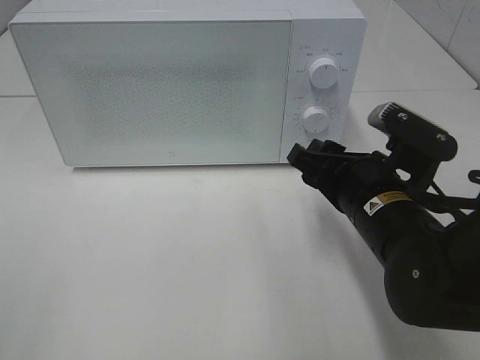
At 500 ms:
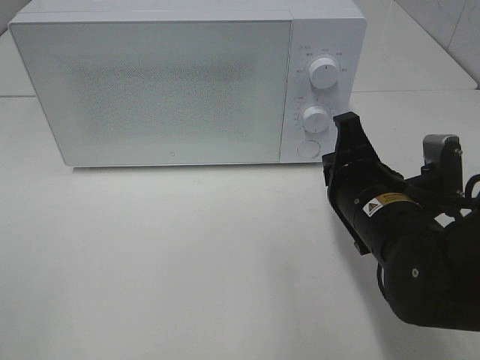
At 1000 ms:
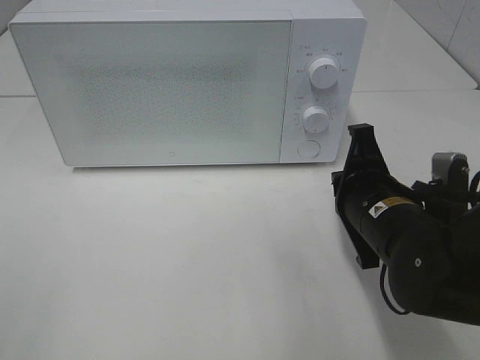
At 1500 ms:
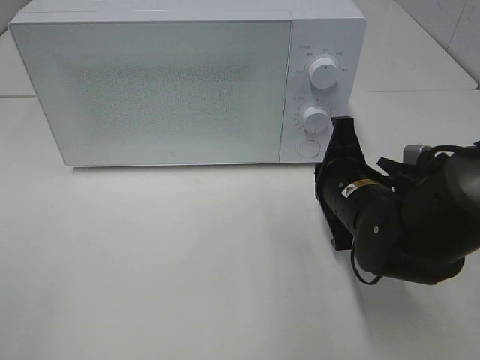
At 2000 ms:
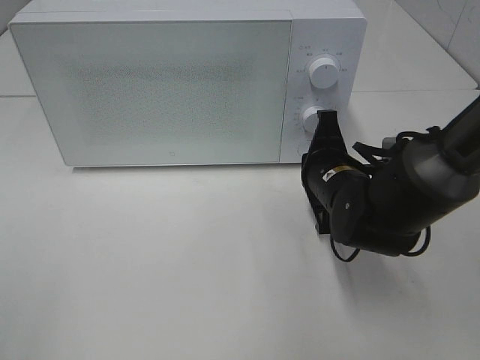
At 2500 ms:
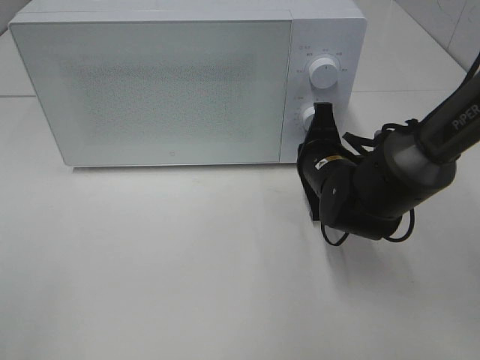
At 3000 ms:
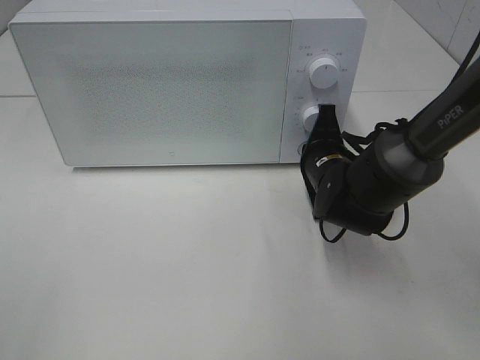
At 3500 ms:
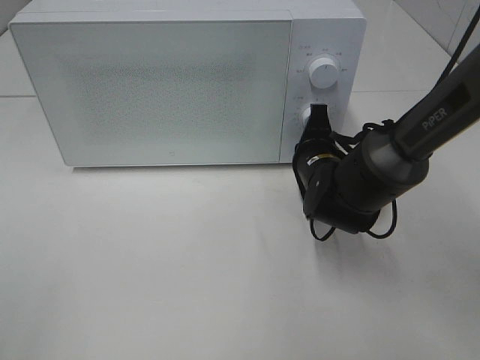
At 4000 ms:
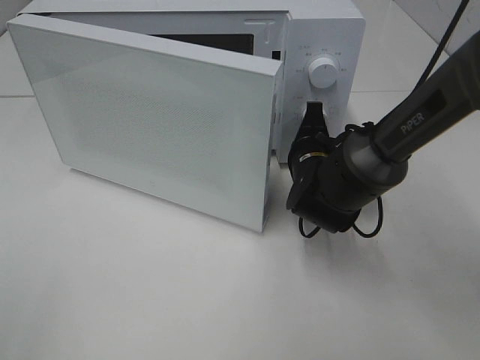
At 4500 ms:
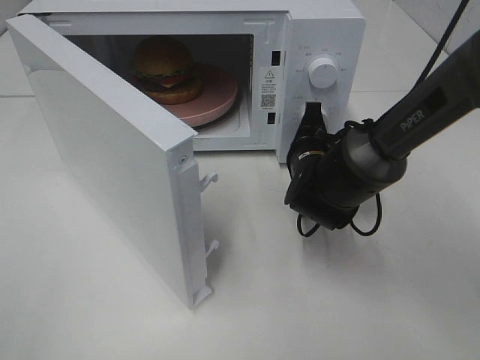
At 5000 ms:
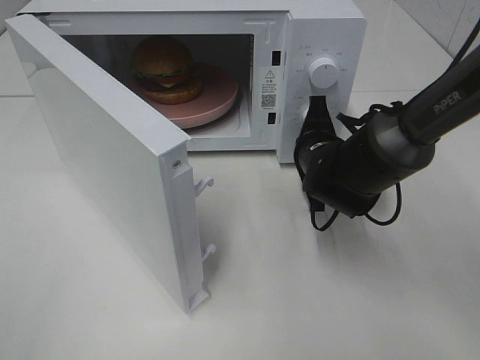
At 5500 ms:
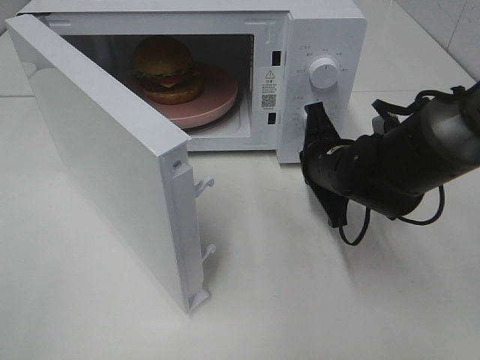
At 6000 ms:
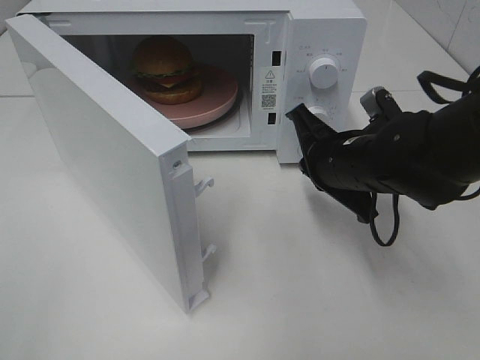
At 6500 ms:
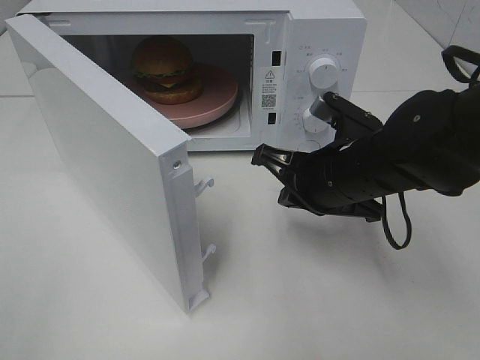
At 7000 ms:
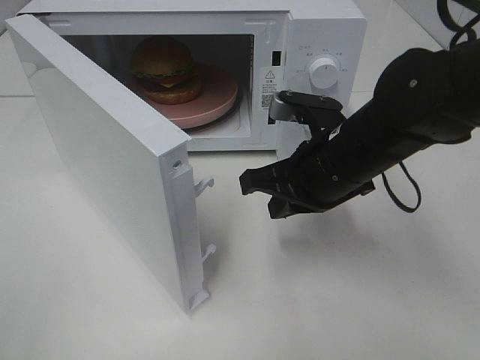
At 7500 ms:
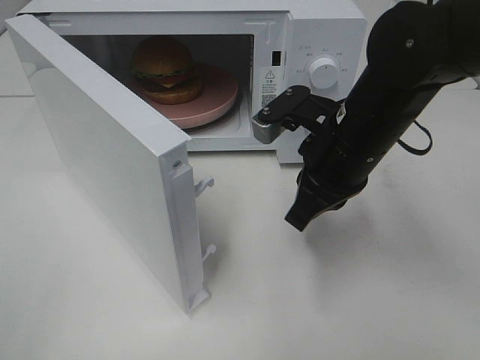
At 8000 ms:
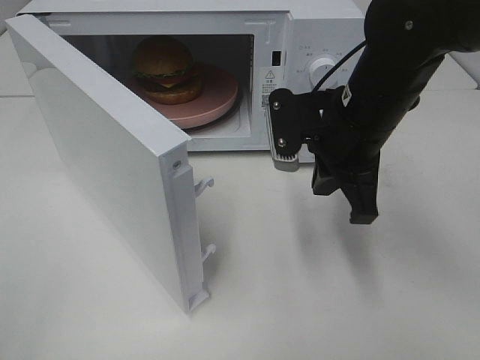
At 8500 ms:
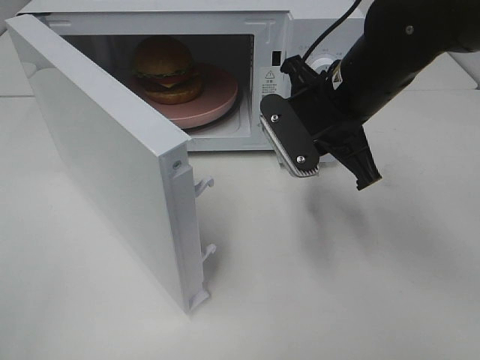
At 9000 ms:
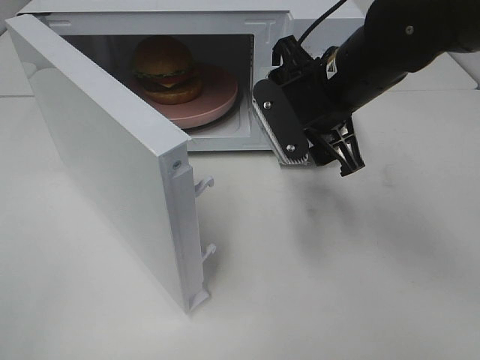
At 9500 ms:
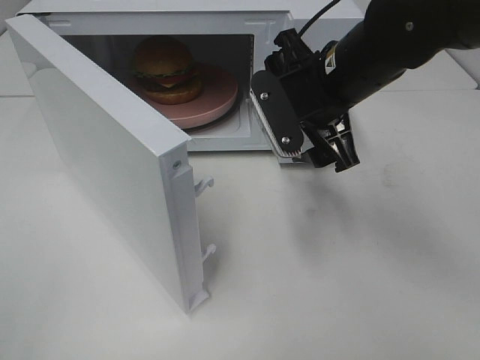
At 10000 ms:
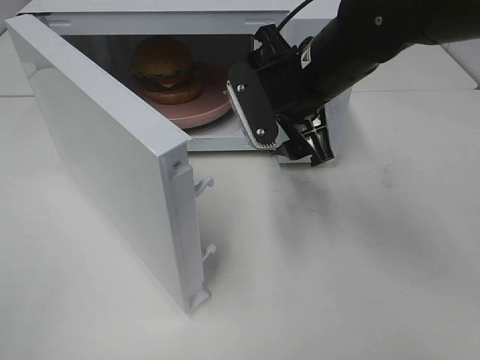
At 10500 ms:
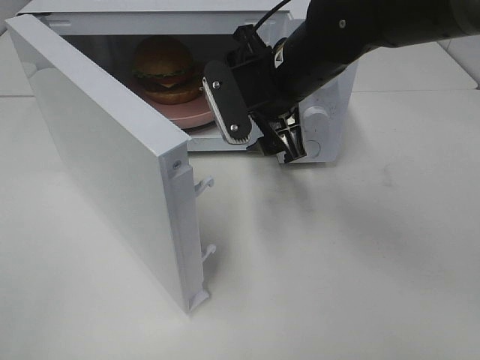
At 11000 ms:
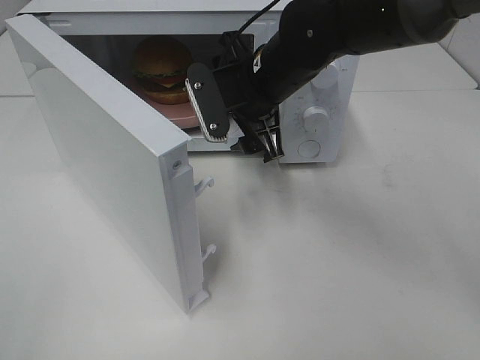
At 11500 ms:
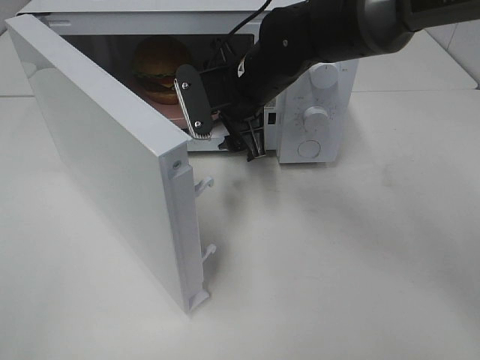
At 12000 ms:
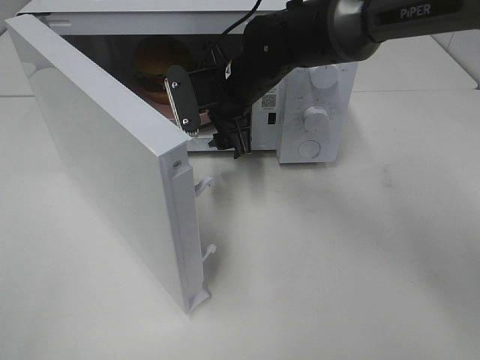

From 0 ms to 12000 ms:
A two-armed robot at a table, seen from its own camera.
Task of the whole recording: Heat the burger.
Step, from 0 ms to 5000 ms: Right hand: press the switch.
From 0 ms to 2000 ms: The right gripper travels forward by roughly 10 cm, and closes its fingers.
From 2000 ms to 4000 ms: The right gripper shifts roughly 5 cm forward.
From 4000 ms to 6000 ms: The right gripper is displaced backward and upward by some 10 cm.
From 6000 ms to 8000 ms: The right gripper moves upward, some 5 cm.
From 8000 ms to 10000 ms: The right gripper shifts by some 5 cm, and opens its fingers.
From 10000 ms to 12000 ms: The right gripper goes about 10 cm forward, to the left and downward.

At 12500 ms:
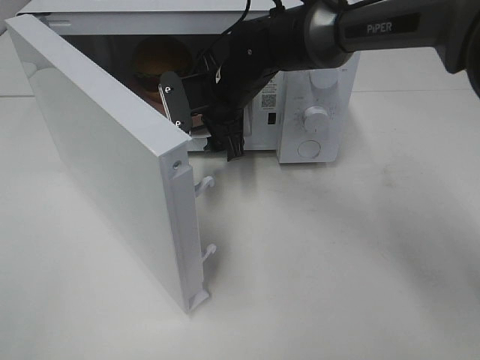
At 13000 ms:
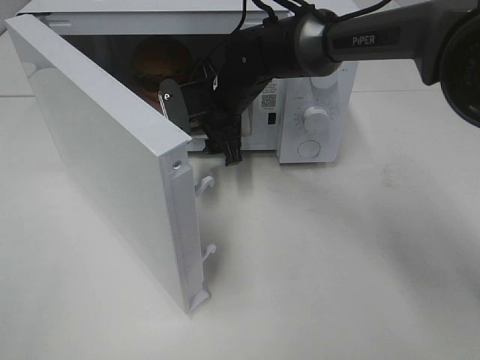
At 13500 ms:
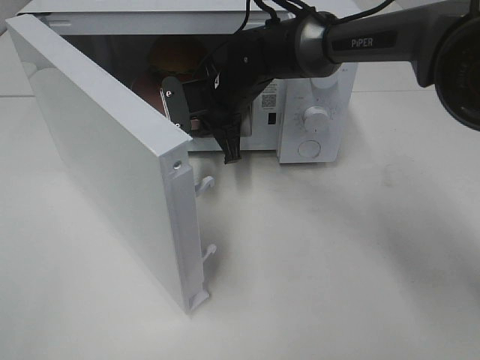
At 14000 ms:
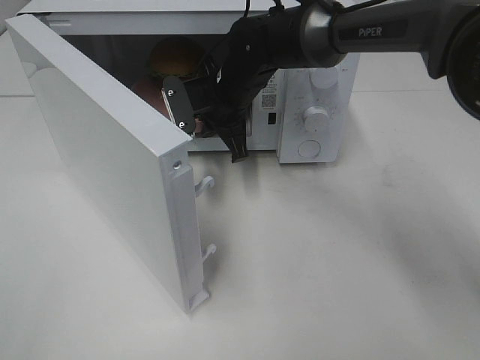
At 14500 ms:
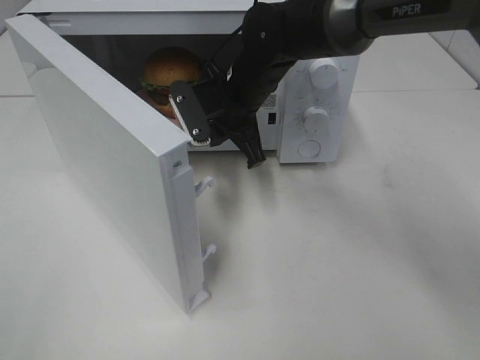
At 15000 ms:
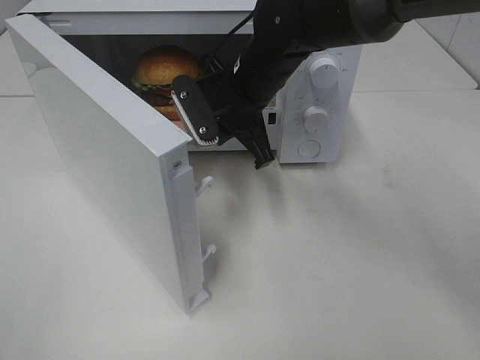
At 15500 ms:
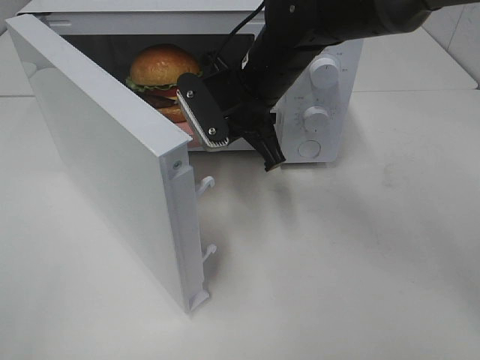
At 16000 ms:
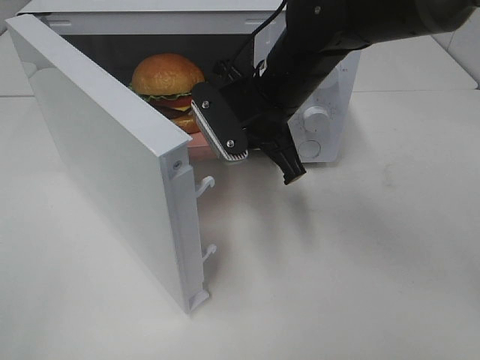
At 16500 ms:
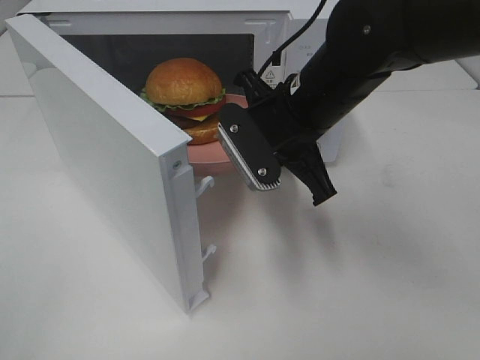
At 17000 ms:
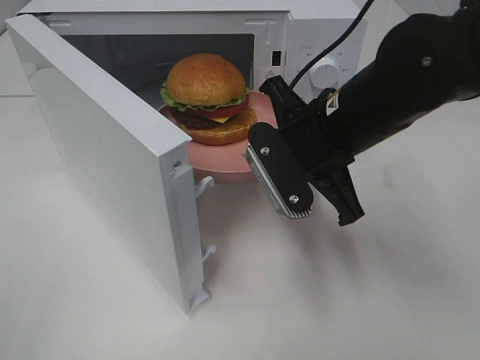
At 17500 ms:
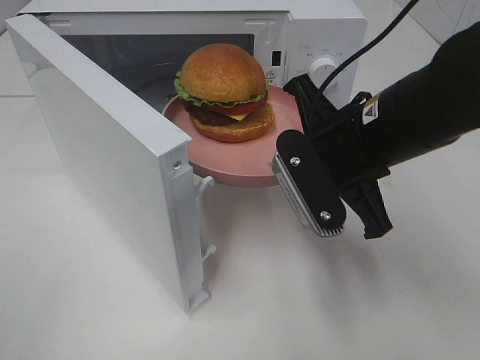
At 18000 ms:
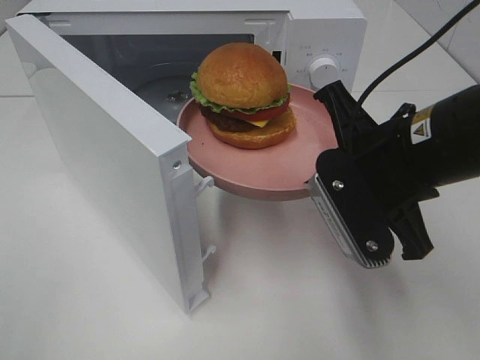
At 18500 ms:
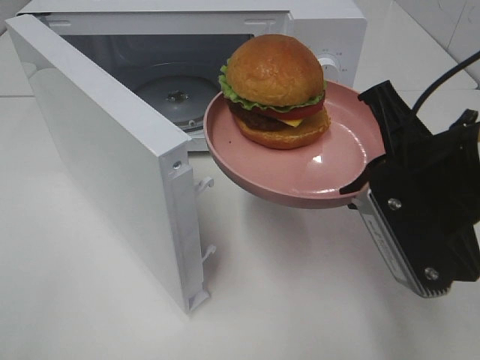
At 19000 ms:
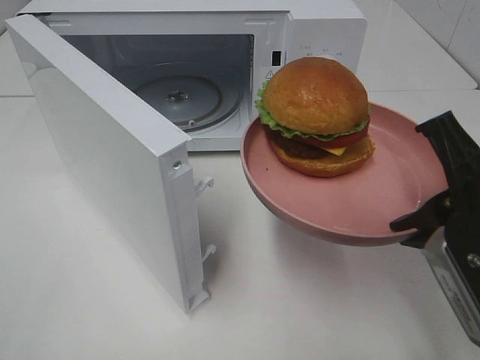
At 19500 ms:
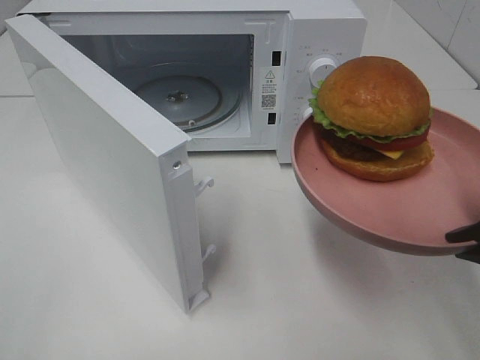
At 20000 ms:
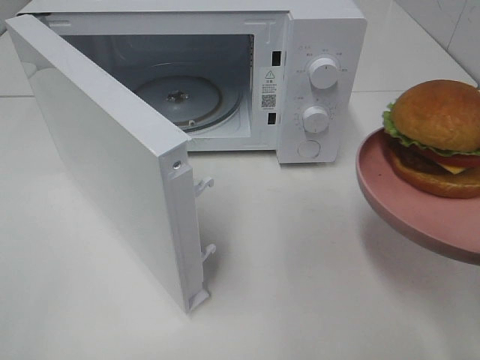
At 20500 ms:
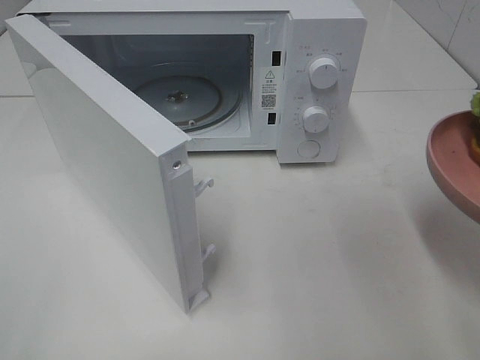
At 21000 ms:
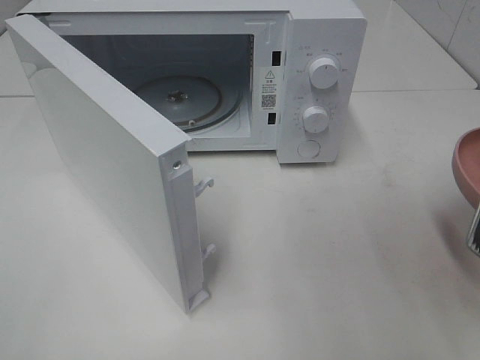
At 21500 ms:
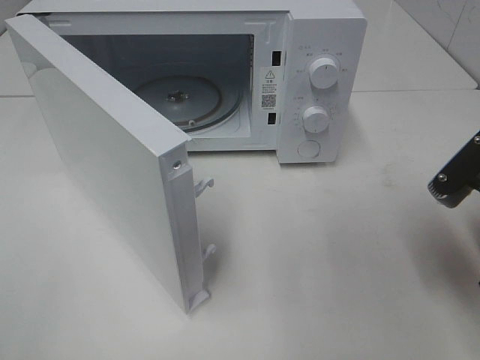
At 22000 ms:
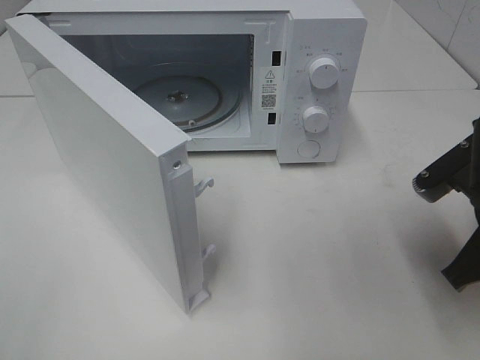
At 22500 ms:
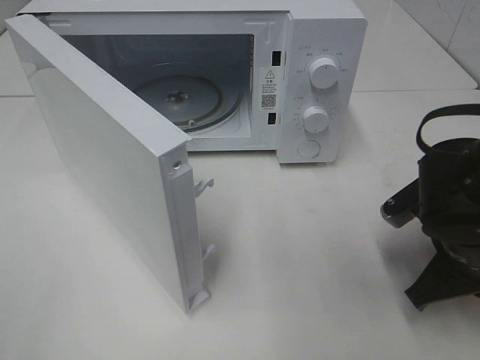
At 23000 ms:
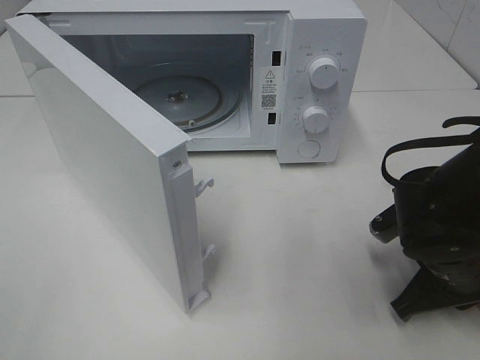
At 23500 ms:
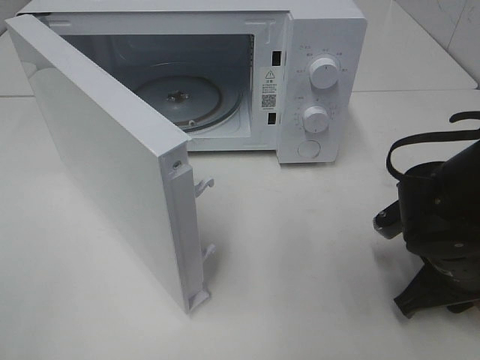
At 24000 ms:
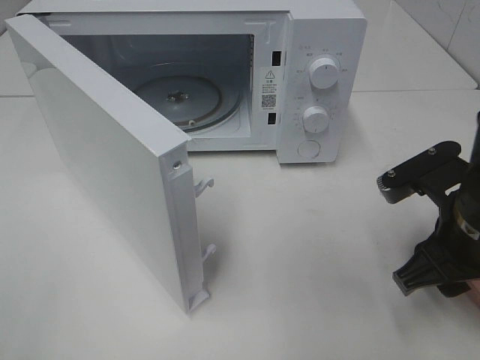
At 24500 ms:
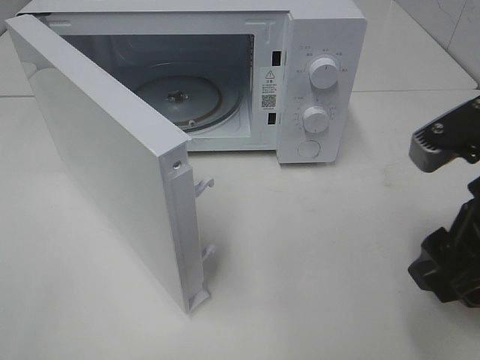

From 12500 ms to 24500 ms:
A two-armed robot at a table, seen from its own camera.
Task of the whole recording: Heat the burger.
Step, from 14000 ms to 23500 ms: Right hand: place the plate on the table.
From 12500 ms to 14500 ms: The right gripper closes.
From 14500 ms to 16500 ms: The right gripper shifts approximately 10 cm backward and to the right.
From 16500 ms to 18500 ms: The right gripper moves backward and to the right, some 15 cm.
From 18500 ms to 20500 ms: The right gripper is displaced to the right and backward by about 10 cm.
From 20500 ms to 22500 ms: The right gripper travels downward and forward by about 15 cm.
From 22500 ms to 24500 ms: The right gripper travels upward and backward by some 15 cm, and opens its fingers.

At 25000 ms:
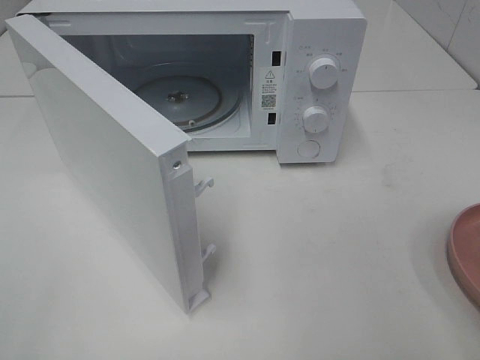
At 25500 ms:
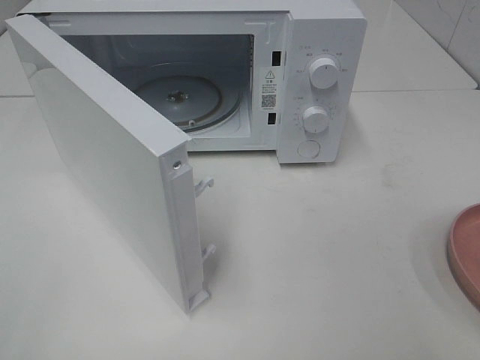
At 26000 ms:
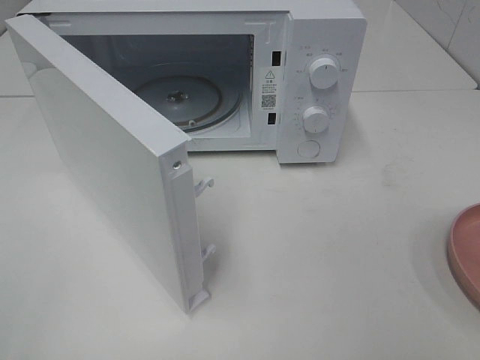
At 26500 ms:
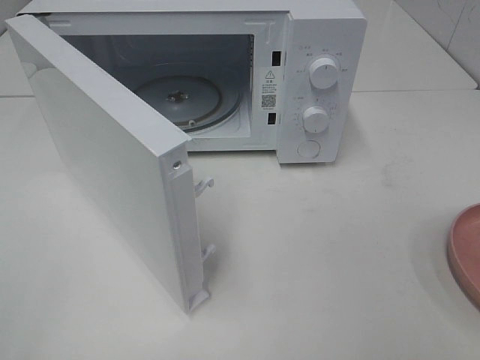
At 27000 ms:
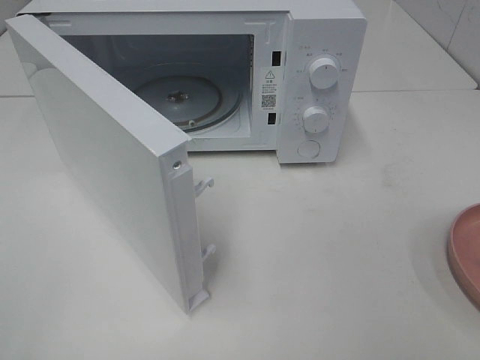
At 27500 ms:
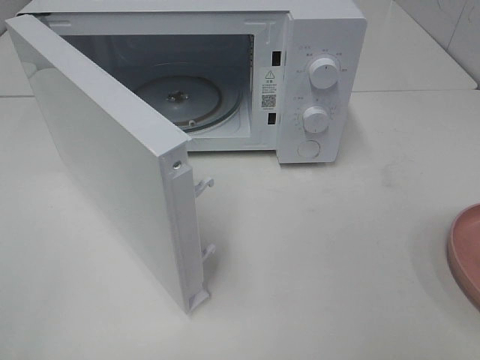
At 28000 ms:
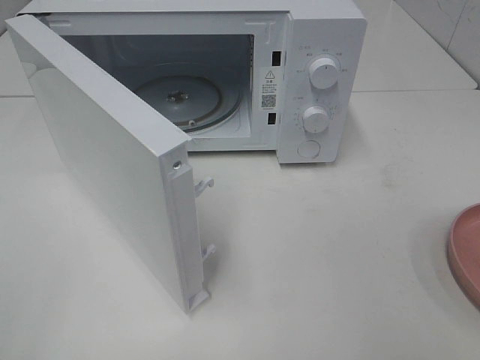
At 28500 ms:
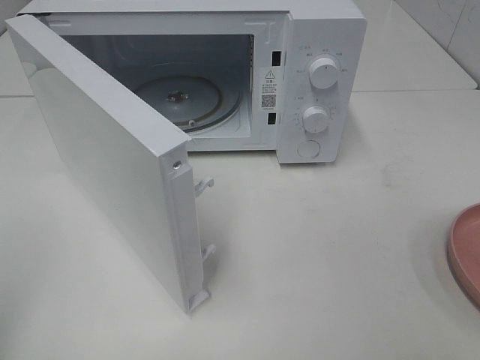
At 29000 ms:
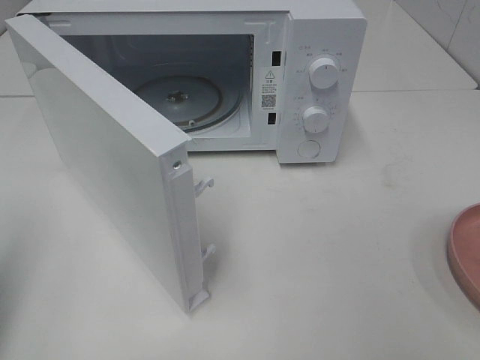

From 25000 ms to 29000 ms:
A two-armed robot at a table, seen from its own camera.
Task of the whole recording: Heat the burger.
From 27000 ms to 29000 ms: The left gripper is displaced forward by about 15 cm, and closes its fingers.
